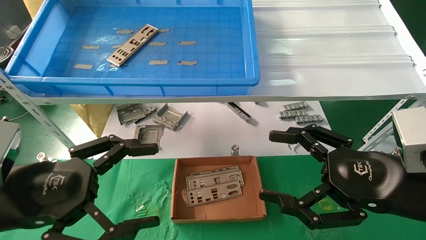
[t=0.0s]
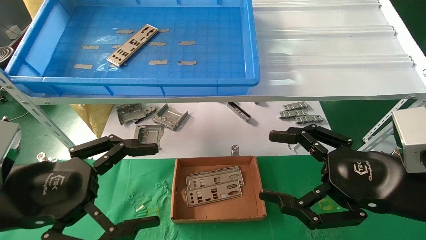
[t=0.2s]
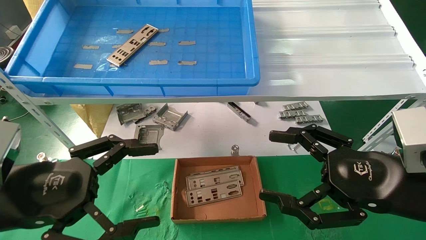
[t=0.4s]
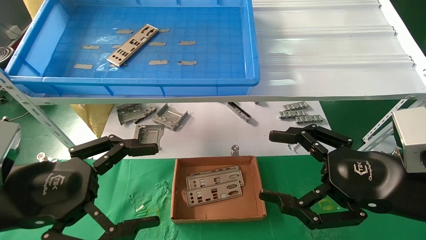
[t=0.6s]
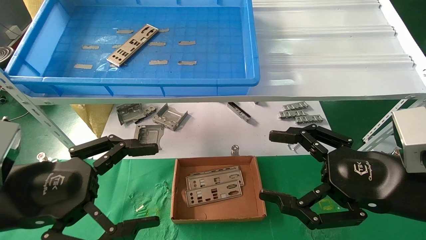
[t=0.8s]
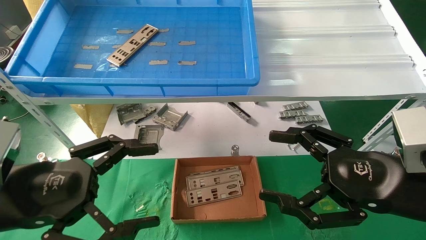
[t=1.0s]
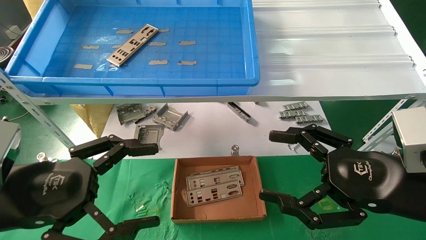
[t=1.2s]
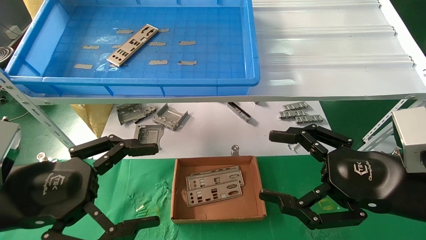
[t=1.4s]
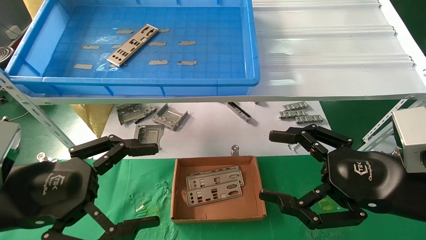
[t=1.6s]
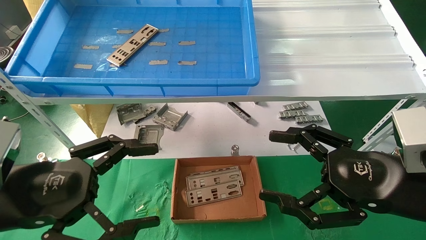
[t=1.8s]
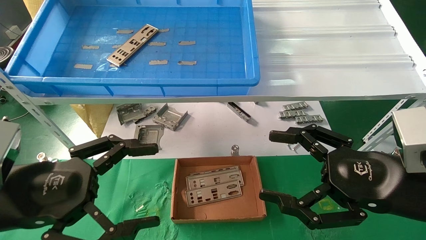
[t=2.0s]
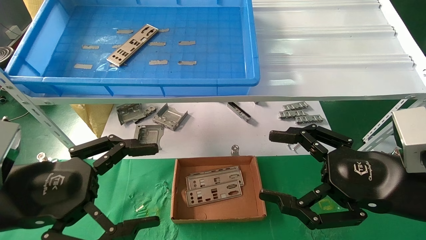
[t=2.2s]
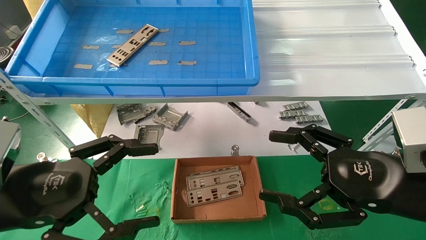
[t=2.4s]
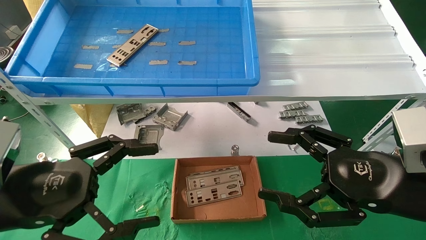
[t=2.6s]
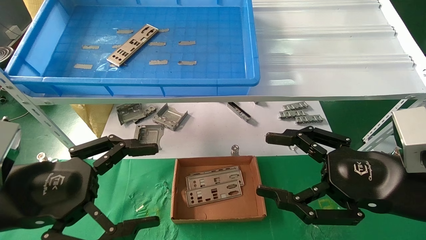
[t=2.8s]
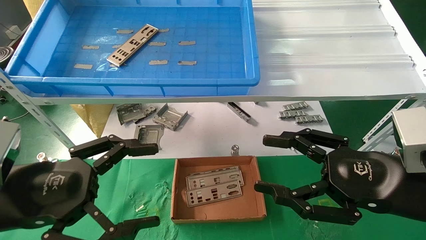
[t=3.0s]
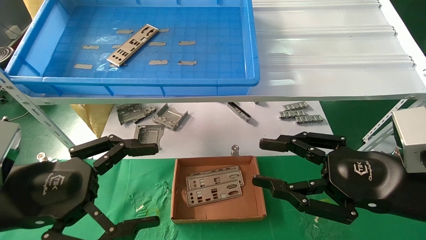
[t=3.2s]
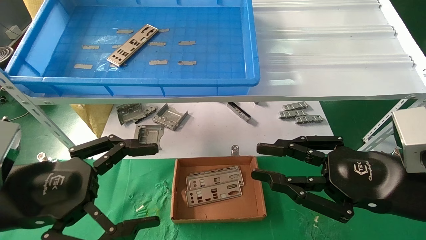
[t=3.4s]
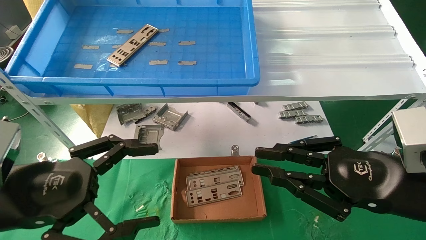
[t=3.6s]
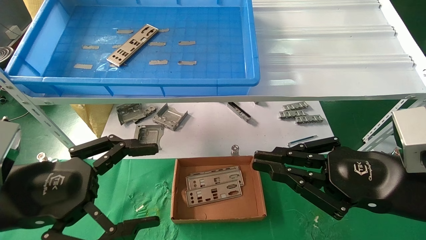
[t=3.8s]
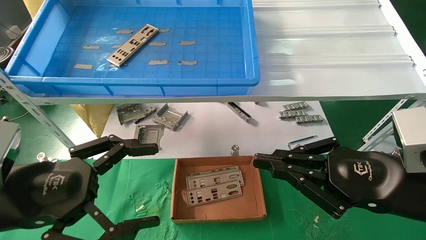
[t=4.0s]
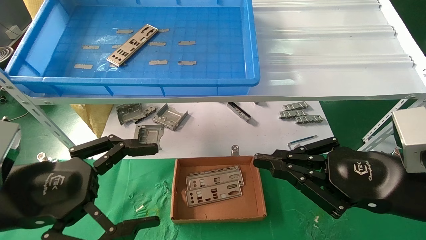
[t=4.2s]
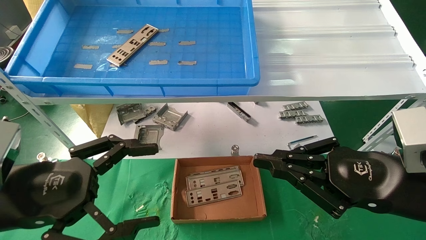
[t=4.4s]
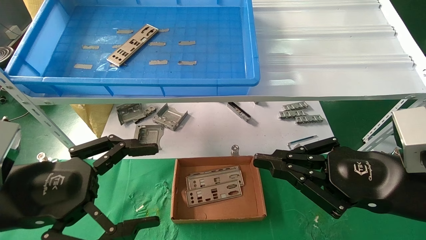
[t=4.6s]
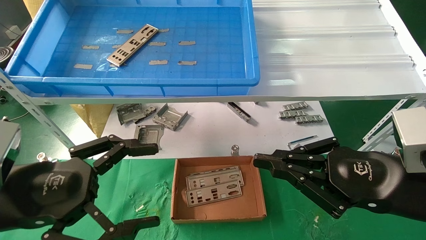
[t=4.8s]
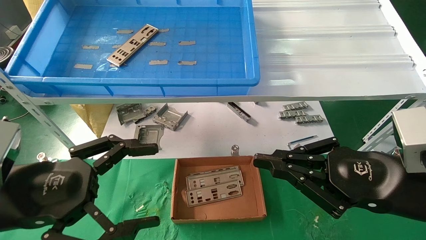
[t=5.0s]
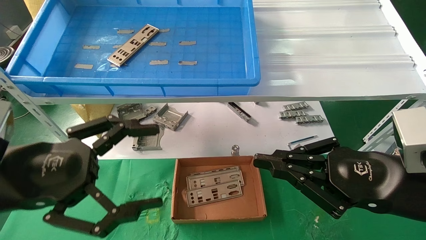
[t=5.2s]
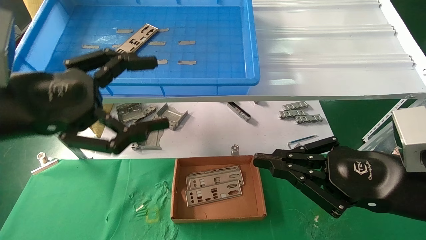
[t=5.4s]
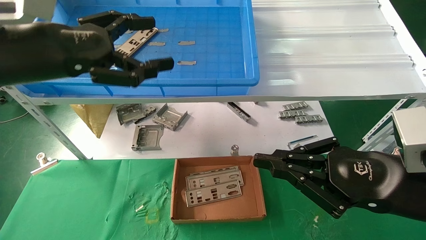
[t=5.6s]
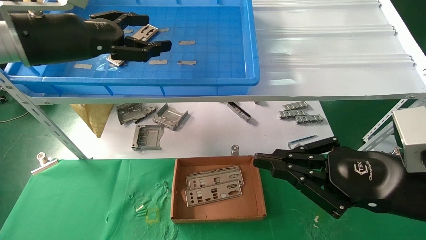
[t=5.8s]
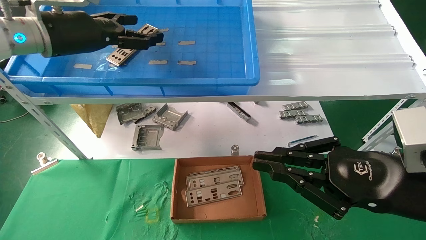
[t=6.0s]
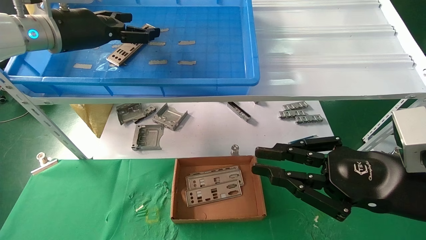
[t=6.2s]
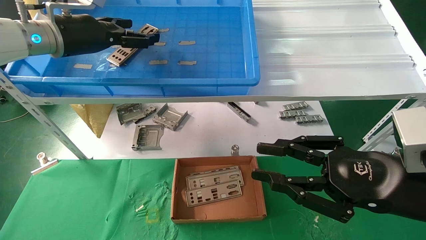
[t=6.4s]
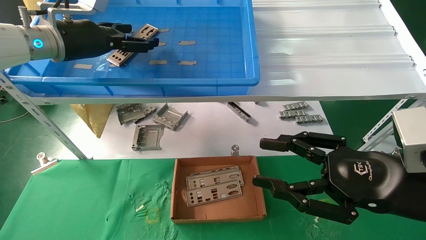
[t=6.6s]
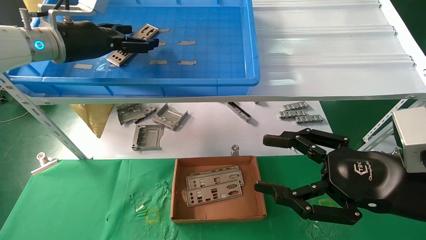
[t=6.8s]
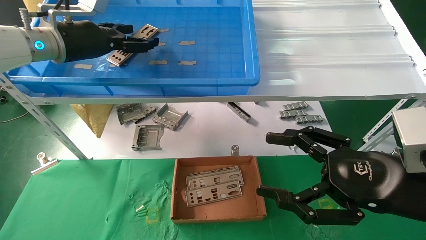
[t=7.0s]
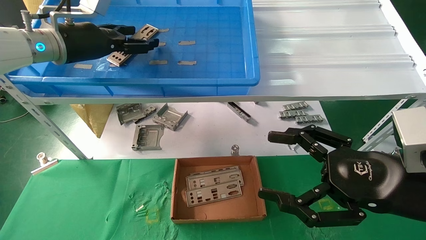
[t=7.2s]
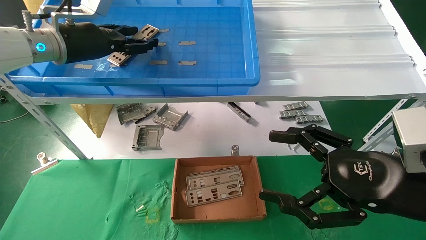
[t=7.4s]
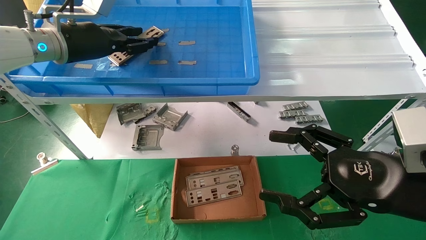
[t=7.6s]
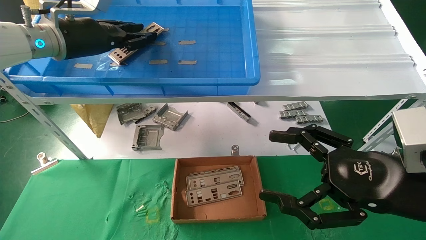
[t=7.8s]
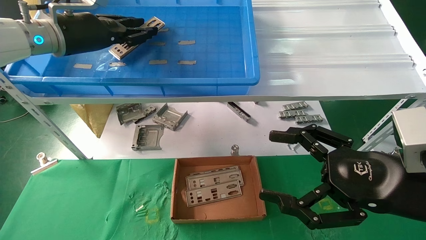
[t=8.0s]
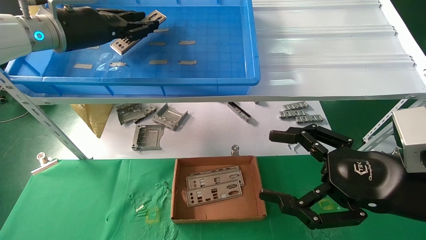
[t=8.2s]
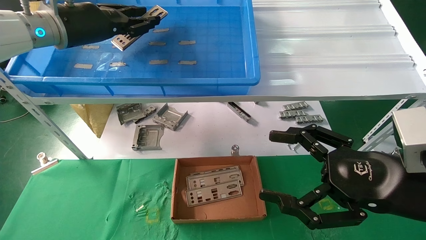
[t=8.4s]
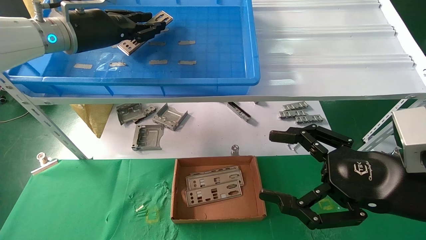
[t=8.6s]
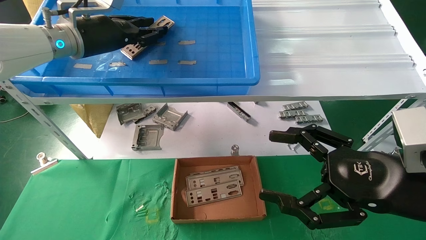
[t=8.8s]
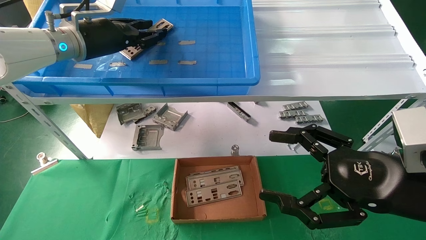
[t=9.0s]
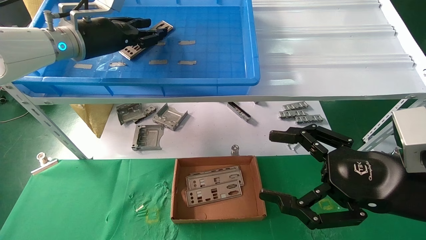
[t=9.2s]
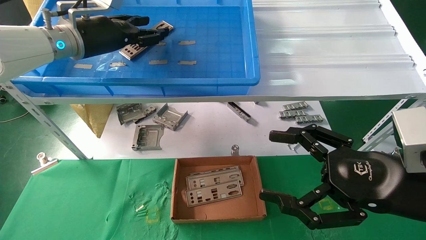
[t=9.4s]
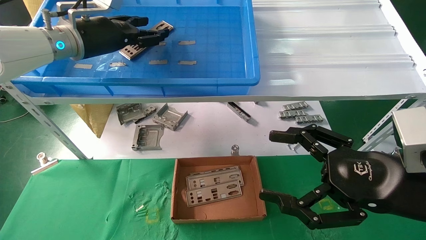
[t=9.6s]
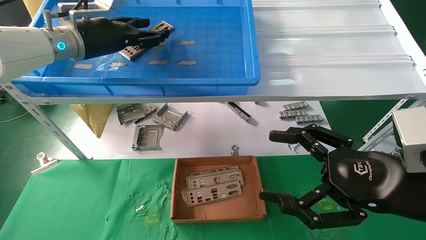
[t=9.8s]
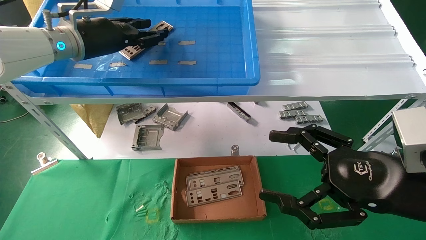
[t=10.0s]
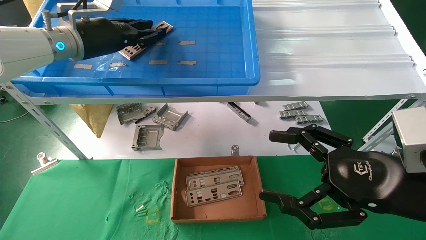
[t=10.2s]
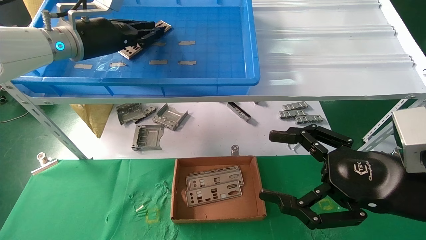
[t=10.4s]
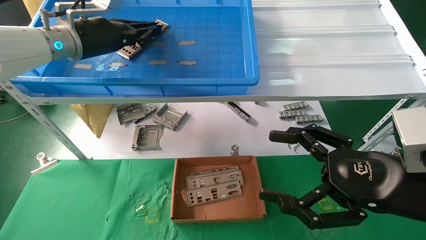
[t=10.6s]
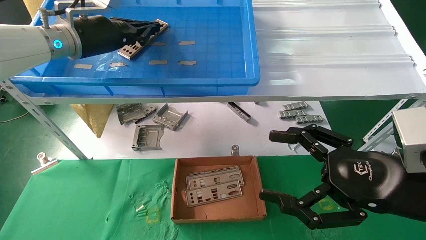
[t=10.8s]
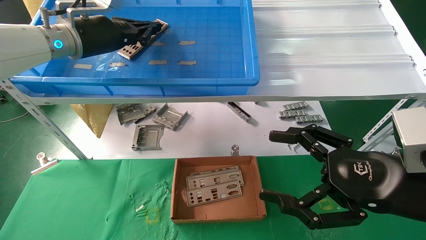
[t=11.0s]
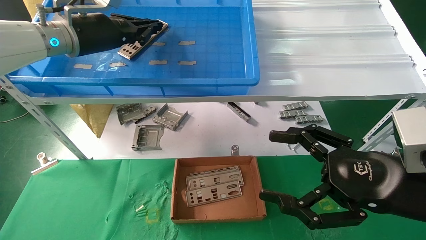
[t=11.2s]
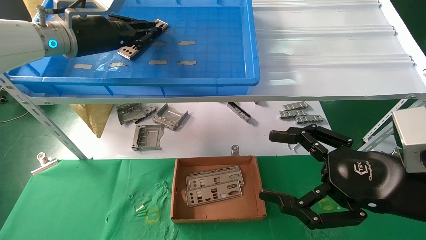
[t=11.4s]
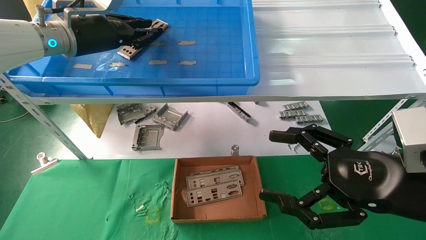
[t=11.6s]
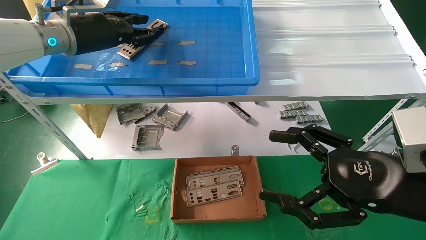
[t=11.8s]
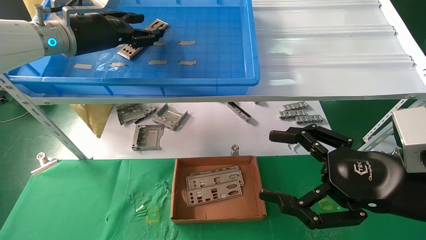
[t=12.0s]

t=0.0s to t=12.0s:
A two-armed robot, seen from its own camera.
Task of the whole recording: pick up the parts on the tray and put them in the cardboard box.
t=0.0s to t=3.0s: Both grippers stay about where they are.
t=3.0s to t=4.4s: The right gripper closes.
t=4.4s to t=6.0s: The left gripper moves forward and upward, some 25 cm.
t=6.0s to t=7.6s: The right gripper opens. Meanwhile the left gripper closes its fingers.
t=7.6s to t=9.0s: There are only small adjustments of the grippers.
t=9.0s to t=10.4s: The two grippers keep their place.
t=10.4s to t=12.0s: The grippers move only a little.

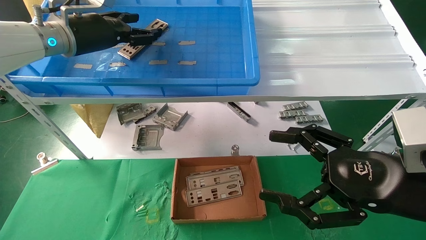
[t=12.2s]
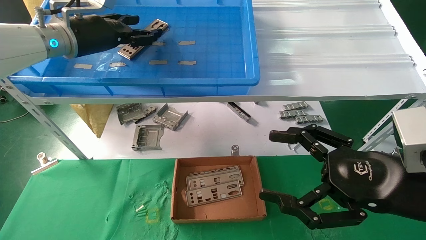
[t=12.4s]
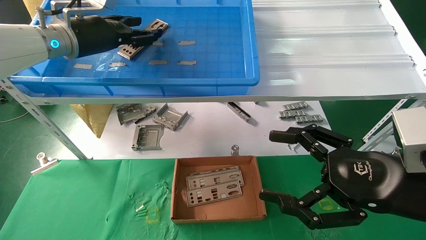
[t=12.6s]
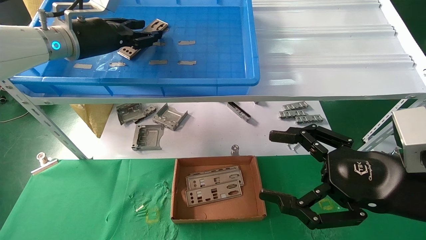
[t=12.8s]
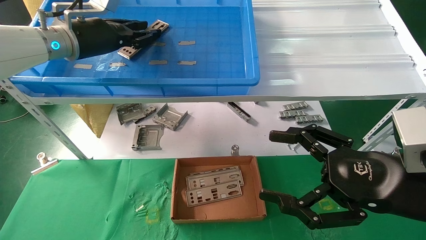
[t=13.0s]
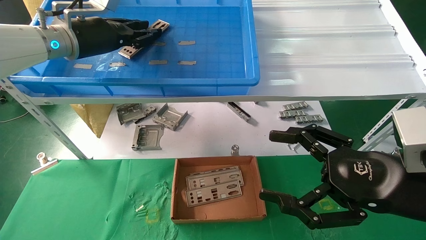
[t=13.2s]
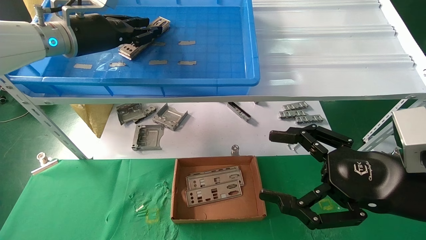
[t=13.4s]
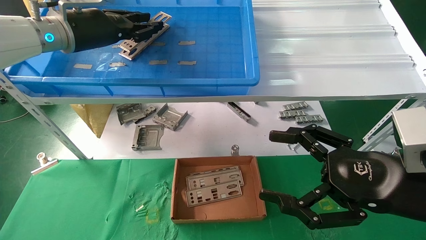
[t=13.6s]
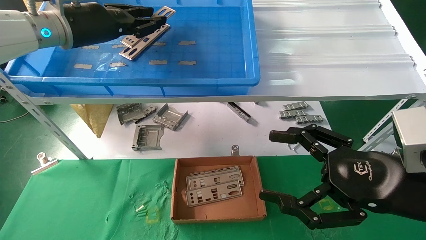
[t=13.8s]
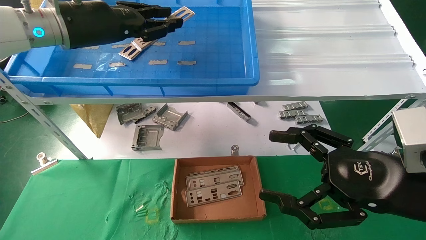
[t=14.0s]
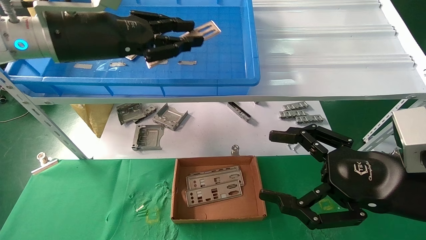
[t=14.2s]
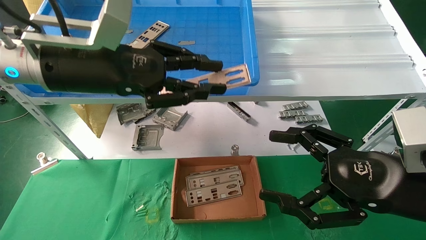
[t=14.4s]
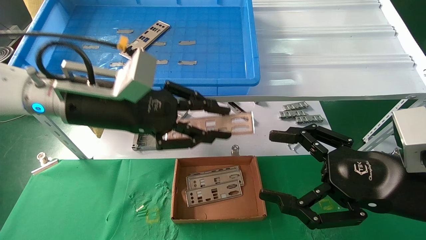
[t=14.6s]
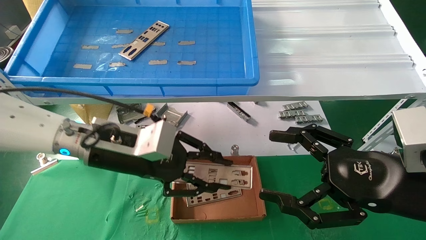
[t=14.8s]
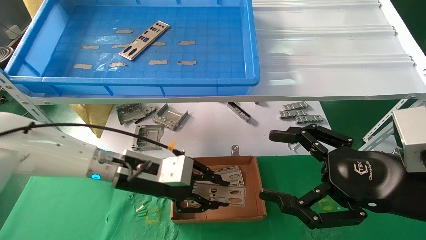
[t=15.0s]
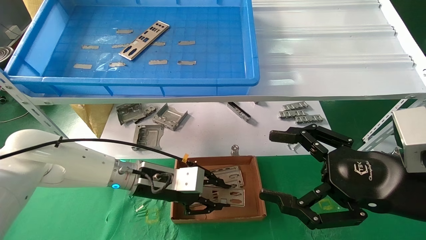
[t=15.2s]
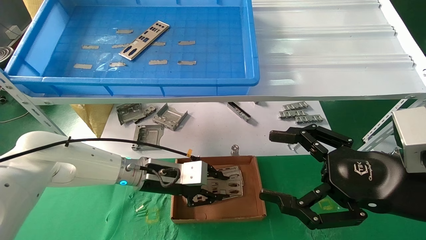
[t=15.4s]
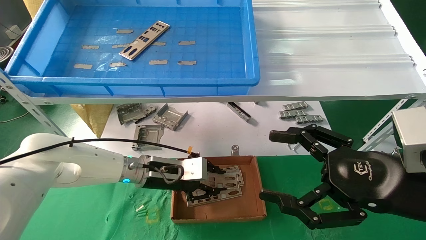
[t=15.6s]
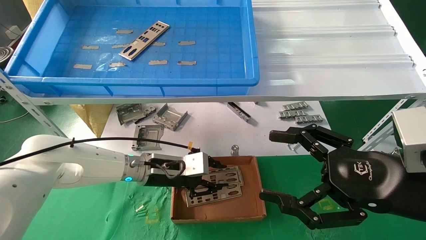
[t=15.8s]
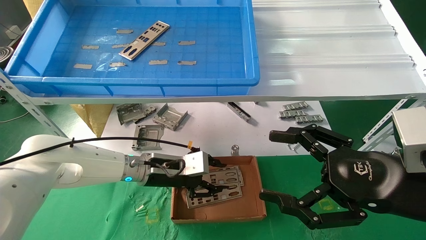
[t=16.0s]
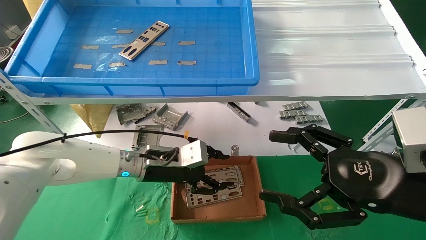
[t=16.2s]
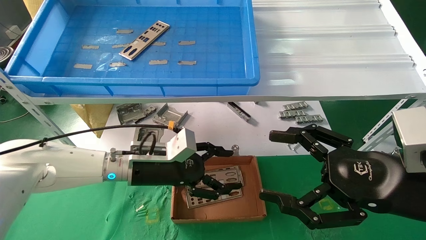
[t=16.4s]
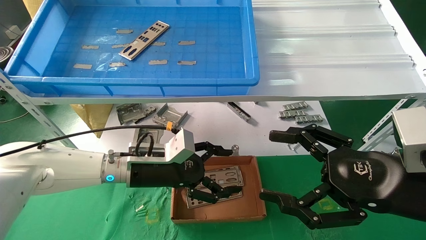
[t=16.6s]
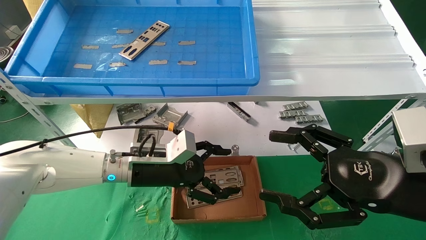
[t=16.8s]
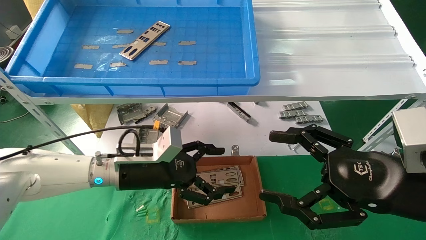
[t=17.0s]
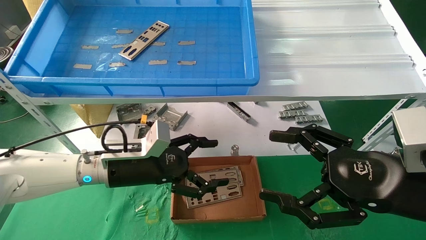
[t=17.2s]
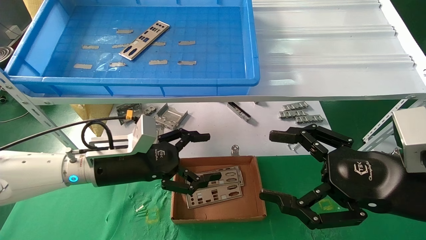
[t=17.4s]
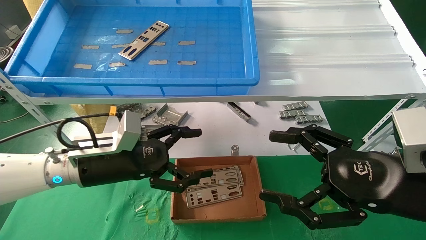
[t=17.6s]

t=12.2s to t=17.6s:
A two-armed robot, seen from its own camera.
Task of the whole recording: pick up the parts on the tray and put them in the cardboard box.
Step, t=13.8s to t=16.0s: Place the IO bracket into the ingredient slot.
t=12.2s to t=13.6s: The grippers move only a little.
t=13.6s to t=15.0s: The left gripper goes about 25 cm downward and to the right.
t=15.0s to t=16.2s: The left gripper moves about 5 cm.
t=16.2s to t=17.6s: The left gripper moves to the left and backward, about 10 cm, and opens its fingers.
